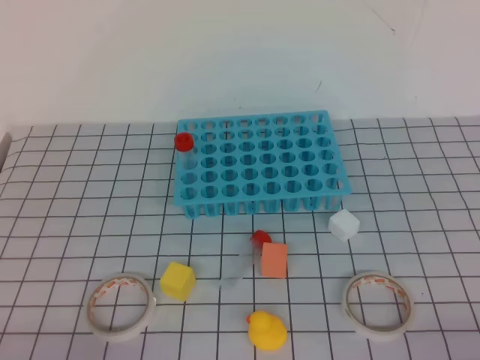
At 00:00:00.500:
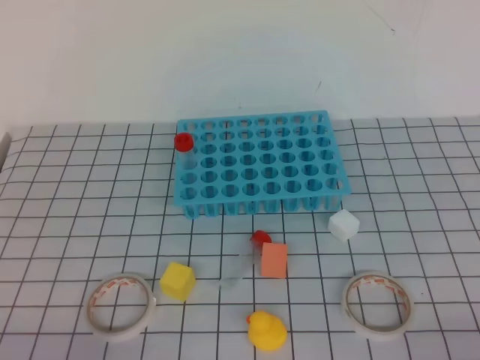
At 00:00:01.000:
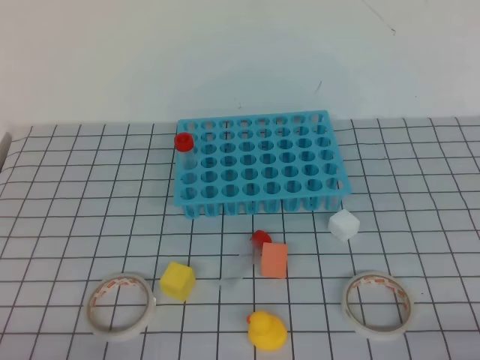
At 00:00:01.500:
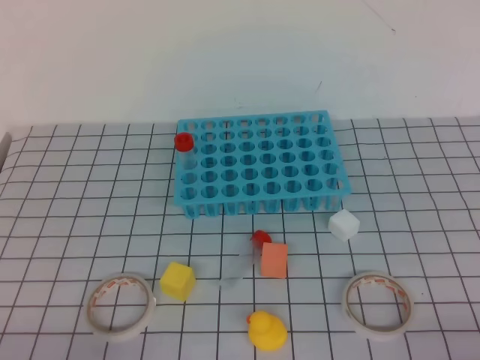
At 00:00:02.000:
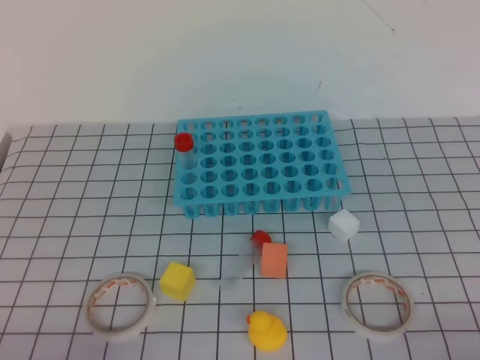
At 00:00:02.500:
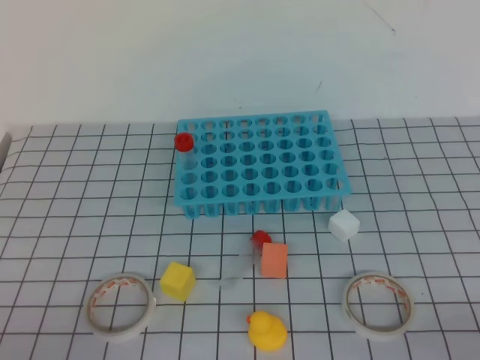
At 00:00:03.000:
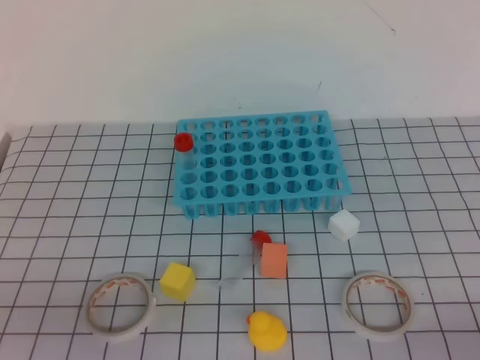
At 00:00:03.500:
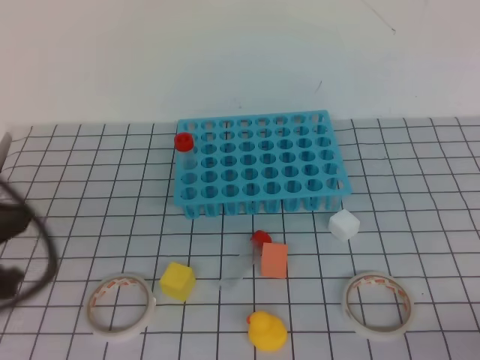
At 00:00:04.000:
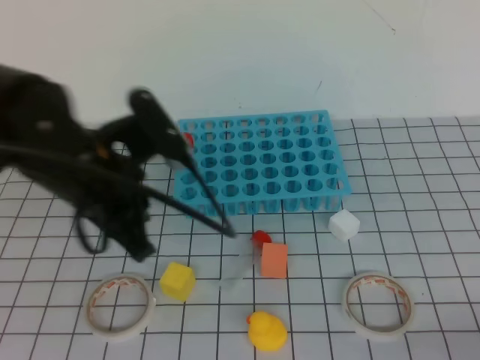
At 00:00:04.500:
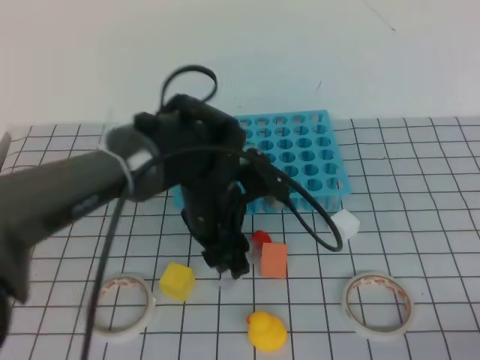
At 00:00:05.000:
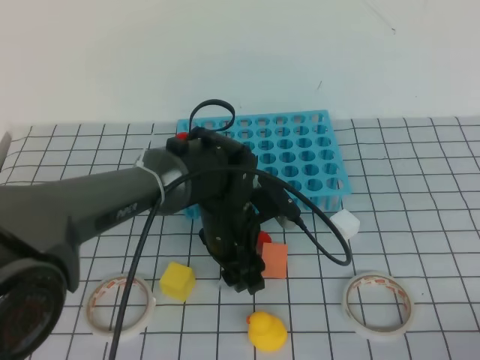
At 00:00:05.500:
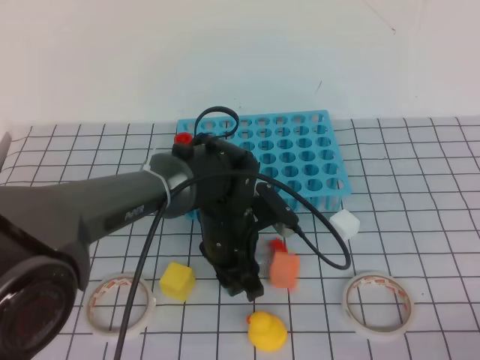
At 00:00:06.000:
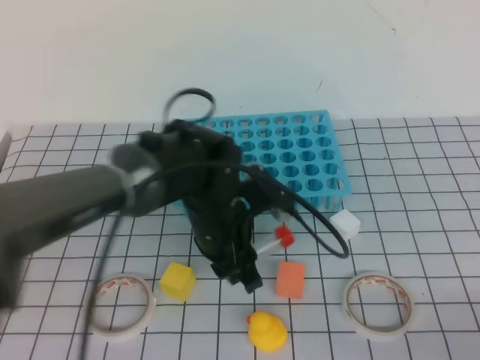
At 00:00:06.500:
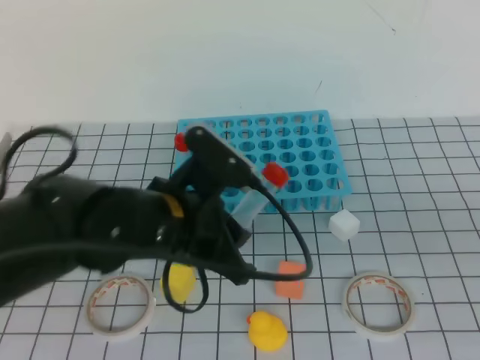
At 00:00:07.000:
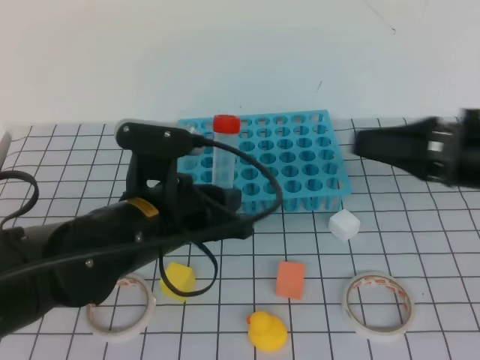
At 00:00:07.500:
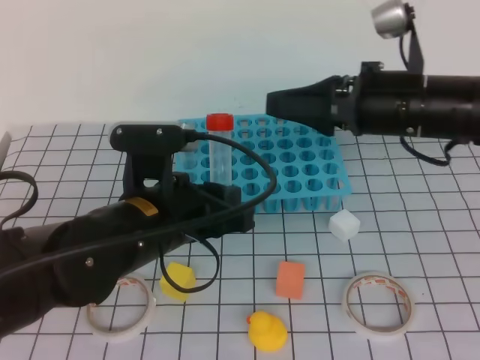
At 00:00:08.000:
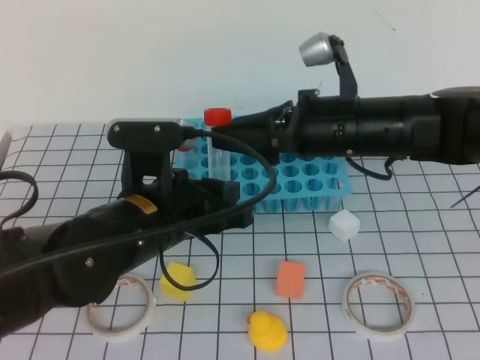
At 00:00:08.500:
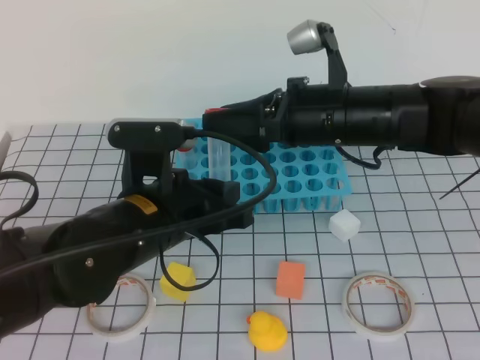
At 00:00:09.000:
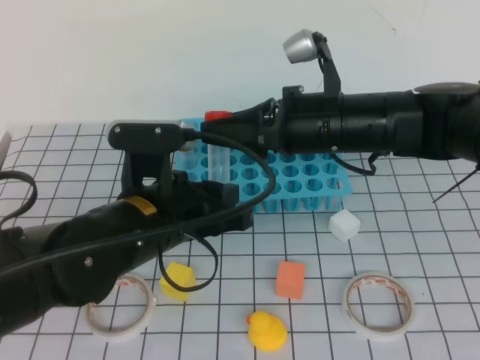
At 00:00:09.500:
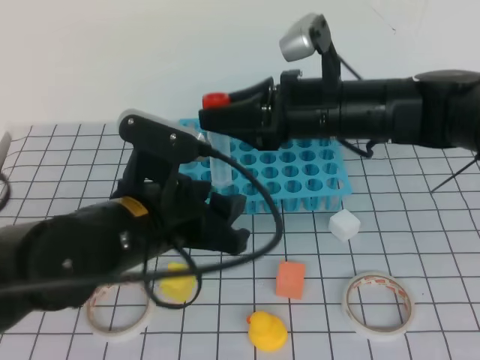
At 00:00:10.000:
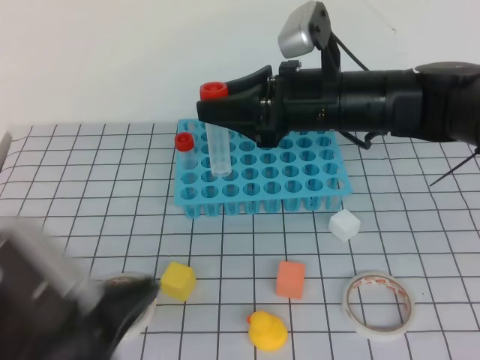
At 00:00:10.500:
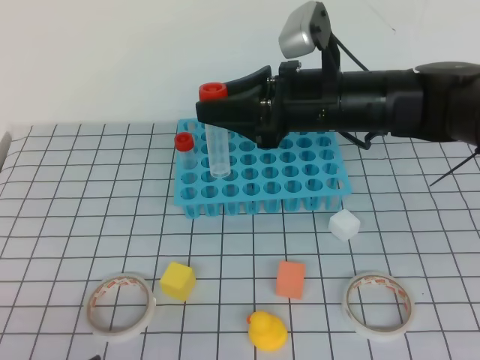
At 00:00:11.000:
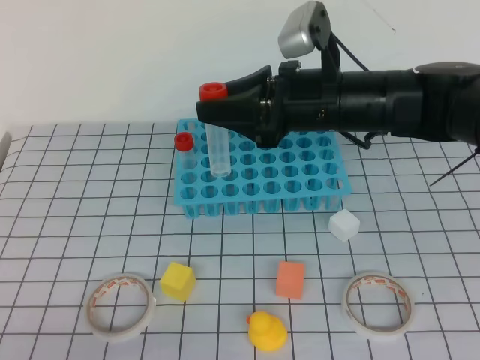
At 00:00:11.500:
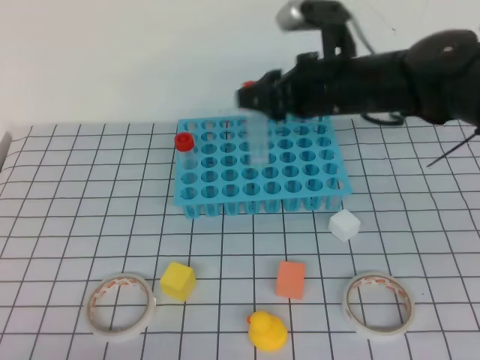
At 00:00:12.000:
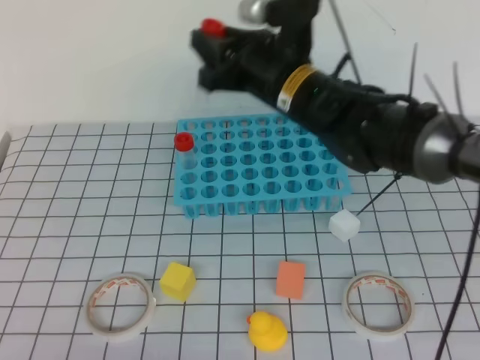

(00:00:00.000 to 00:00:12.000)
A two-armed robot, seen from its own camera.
00:00:02.000 - 00:00:04.000: The left gripper moves forward, upward and to the right, approximately 30 cm.
00:00:04.000 - 00:00:06.000: The left gripper travels downward, to the right and forward by approximately 20 cm, and opens.
00:00:06.000 - 00:00:08.000: The left gripper shifts some 10 cm backward, upward and to the left. The right gripper is displaced forward and to the left by roughly 35 cm, and opens up.
00:00:08.000 - 00:00:10.000: The right gripper closes up; the left gripper is displaced backward and to the left by some 15 cm, and closes its fingers.
00:00:10.000 - 00:00:12.000: The right gripper ends up about 5 cm from where it was; the left gripper goes approximately 10 cm backward and downward.

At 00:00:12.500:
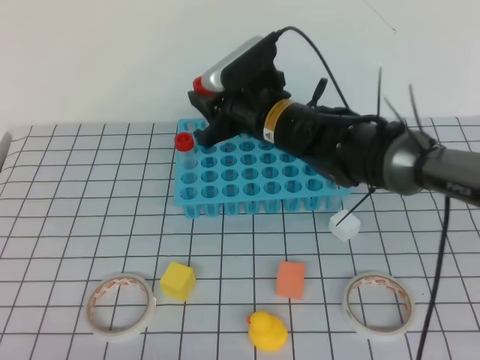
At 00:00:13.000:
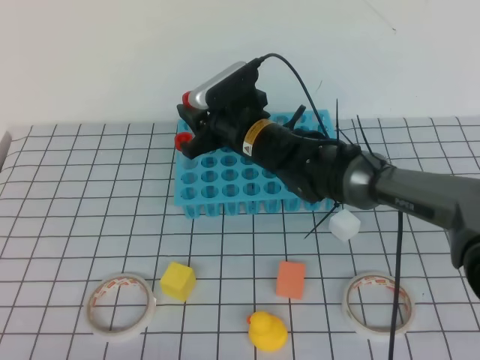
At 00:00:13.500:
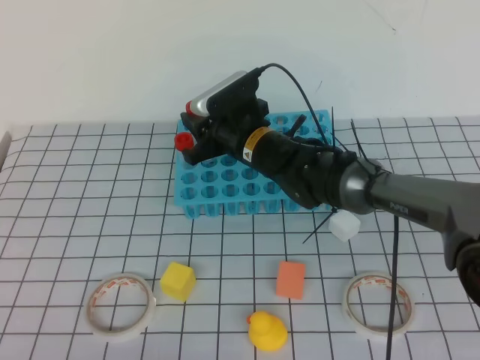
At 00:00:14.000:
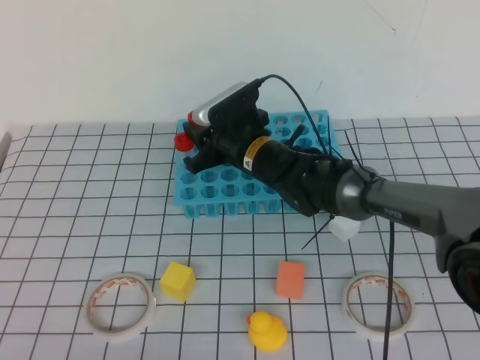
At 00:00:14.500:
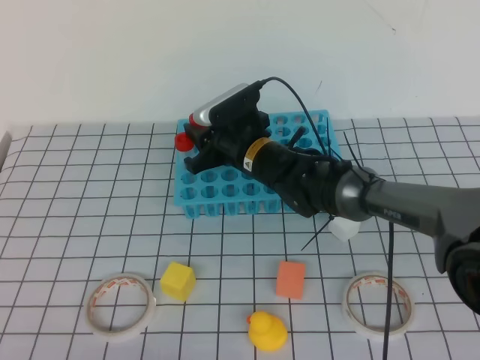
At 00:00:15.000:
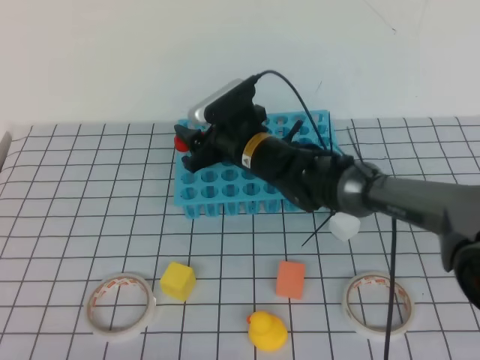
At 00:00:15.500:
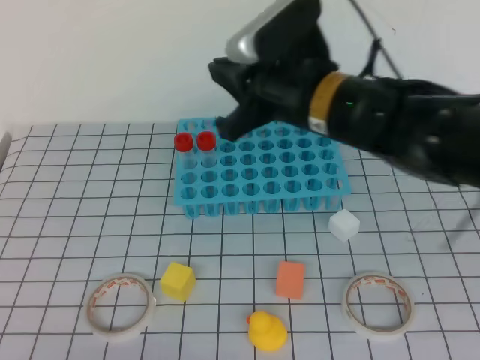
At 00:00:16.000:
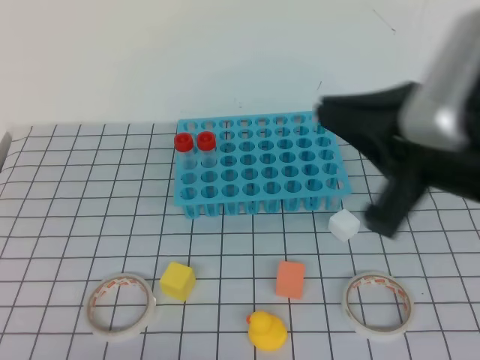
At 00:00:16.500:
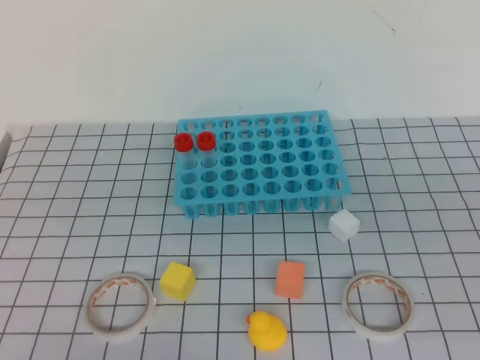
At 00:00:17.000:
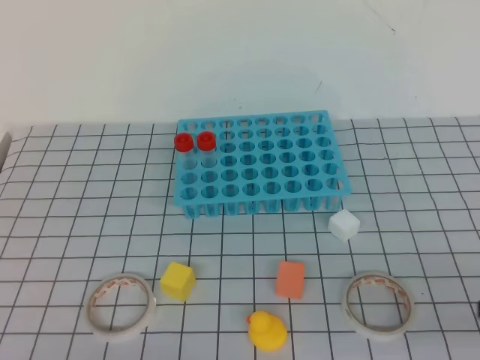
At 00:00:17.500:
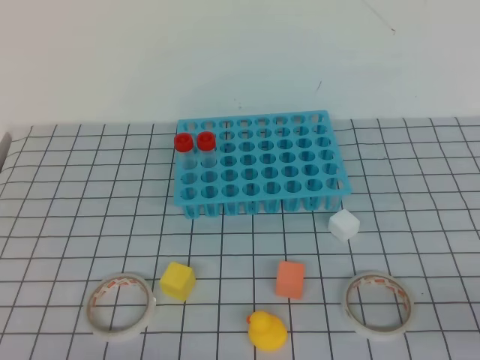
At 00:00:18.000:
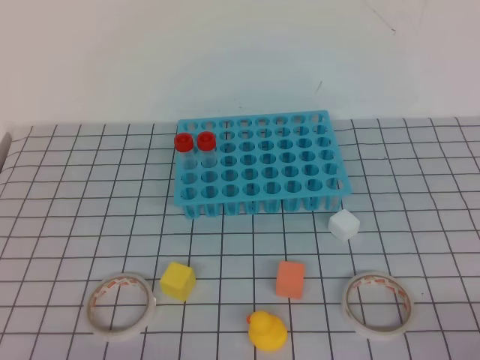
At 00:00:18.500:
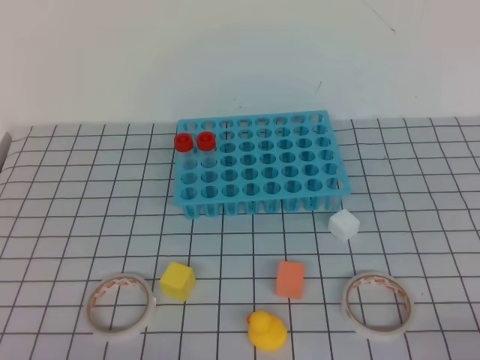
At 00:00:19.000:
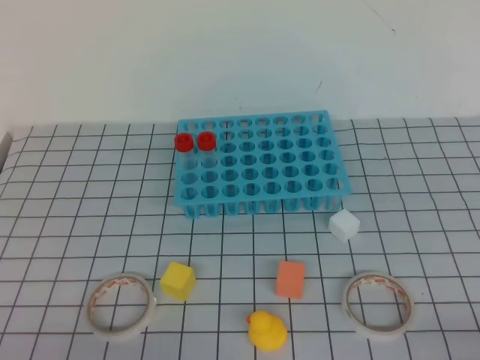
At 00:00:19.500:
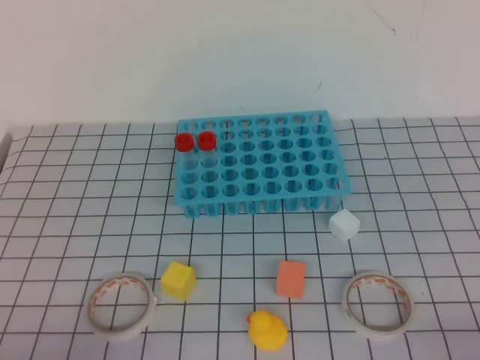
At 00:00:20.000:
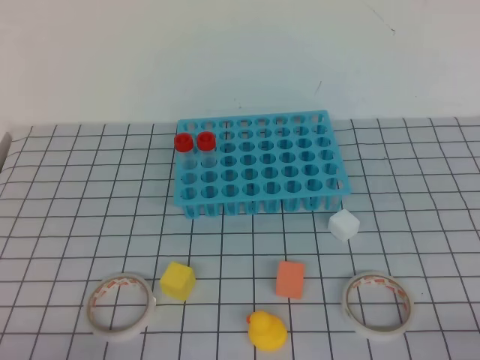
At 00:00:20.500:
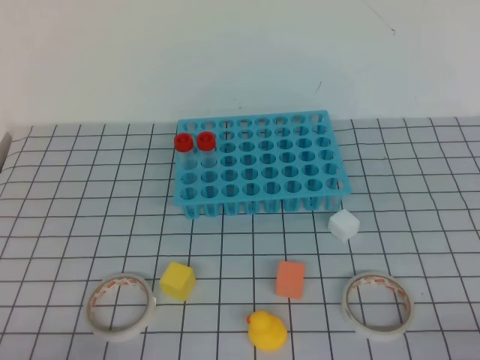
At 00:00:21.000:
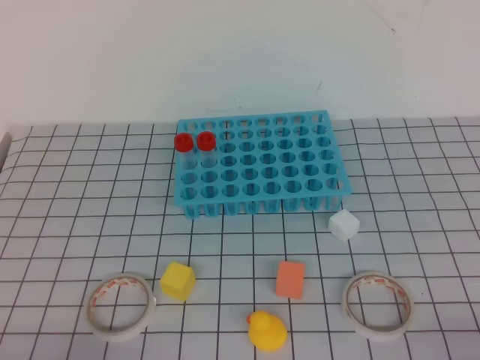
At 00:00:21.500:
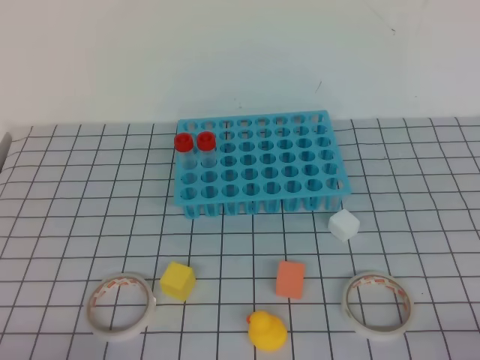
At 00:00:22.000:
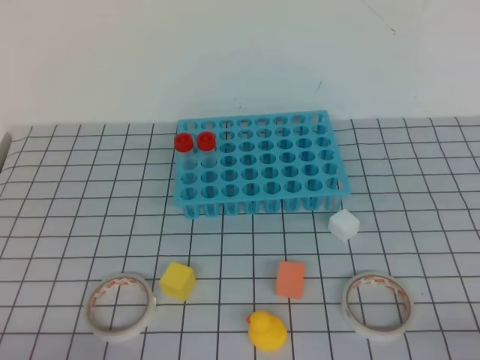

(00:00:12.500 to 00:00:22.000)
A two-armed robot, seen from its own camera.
00:00:12.500 - 00:00:14.500: The right gripper heads downward, covering approximately 10 cm.
00:00:14.500 - 00:00:16.500: The right gripper heads backward, to the right and upward, covering roughly 40 cm, and closes up.
00:00:16.500 - 00:00:18.000: The right gripper moves downward, to the right and backward, about 20 cm.
00:00:20.000 - 00:00:22.000: Both grippers stay put.
